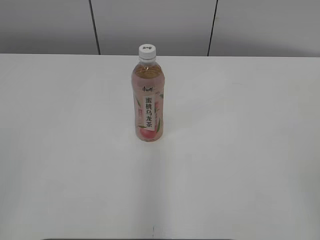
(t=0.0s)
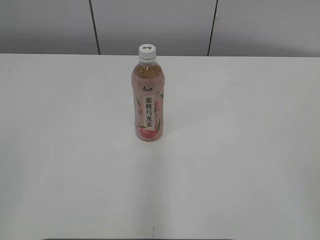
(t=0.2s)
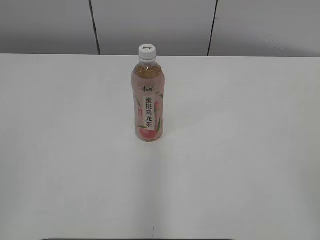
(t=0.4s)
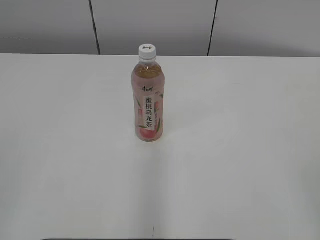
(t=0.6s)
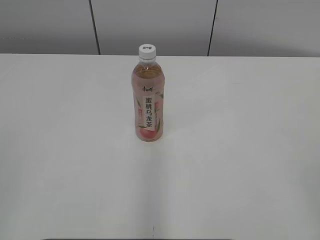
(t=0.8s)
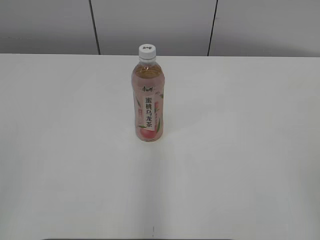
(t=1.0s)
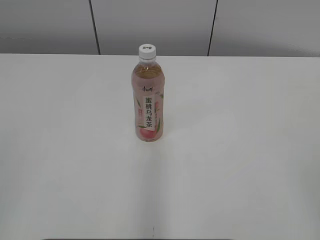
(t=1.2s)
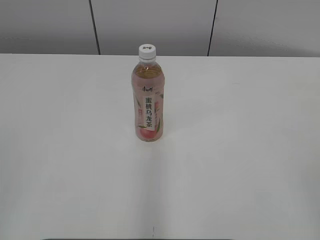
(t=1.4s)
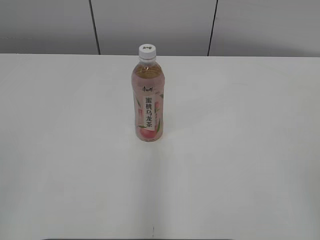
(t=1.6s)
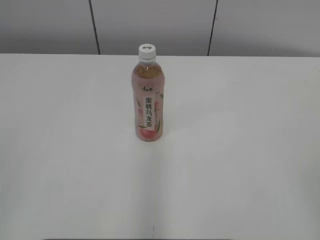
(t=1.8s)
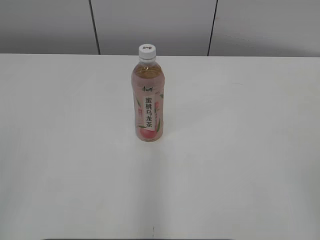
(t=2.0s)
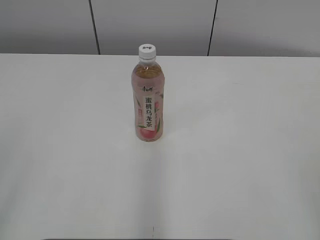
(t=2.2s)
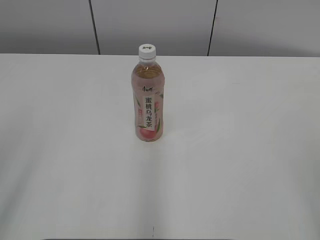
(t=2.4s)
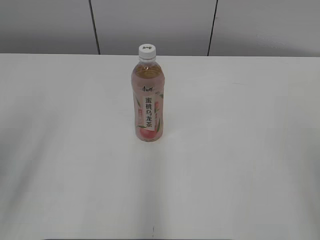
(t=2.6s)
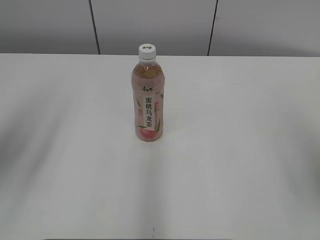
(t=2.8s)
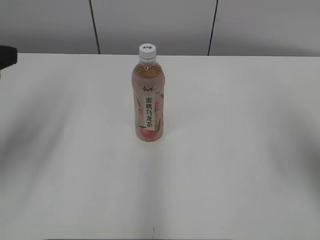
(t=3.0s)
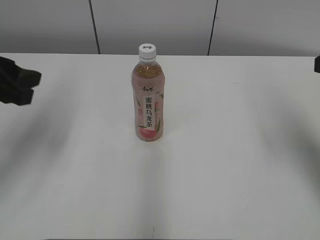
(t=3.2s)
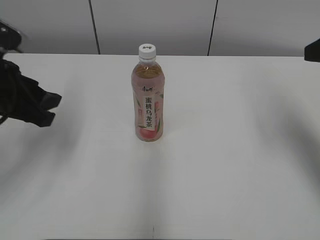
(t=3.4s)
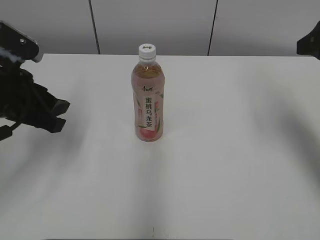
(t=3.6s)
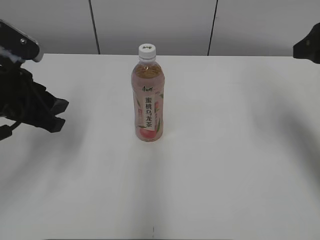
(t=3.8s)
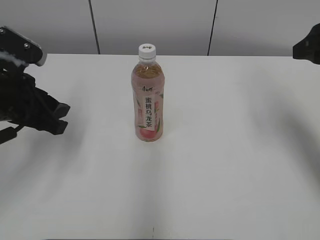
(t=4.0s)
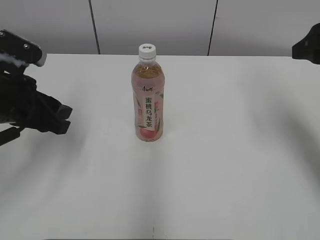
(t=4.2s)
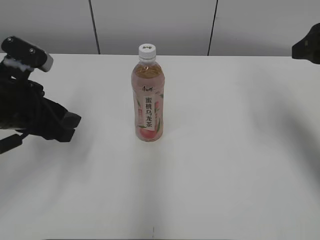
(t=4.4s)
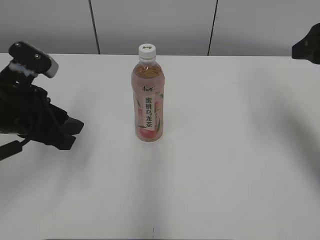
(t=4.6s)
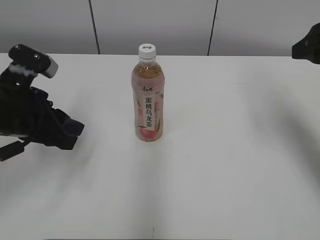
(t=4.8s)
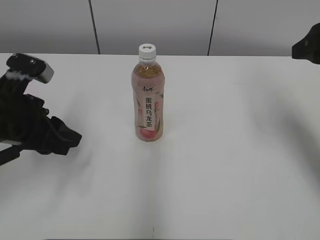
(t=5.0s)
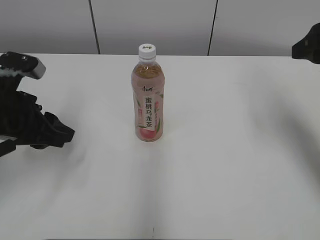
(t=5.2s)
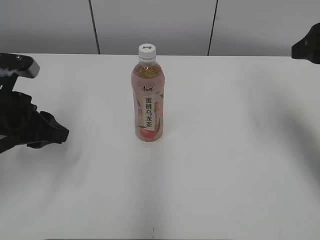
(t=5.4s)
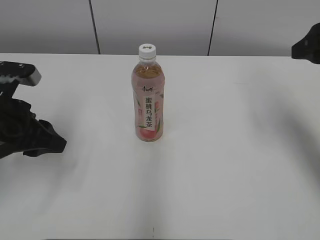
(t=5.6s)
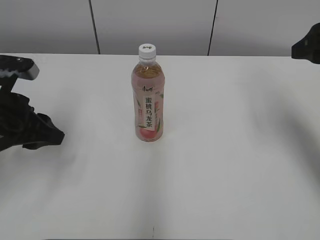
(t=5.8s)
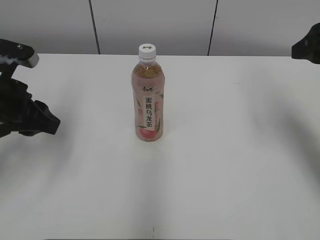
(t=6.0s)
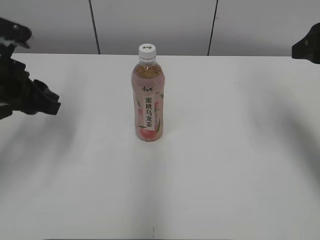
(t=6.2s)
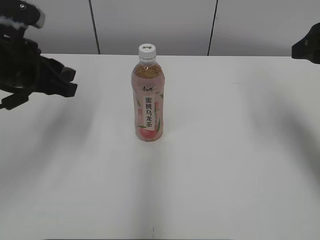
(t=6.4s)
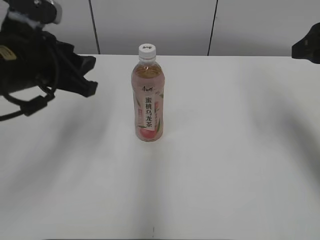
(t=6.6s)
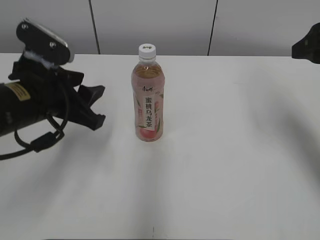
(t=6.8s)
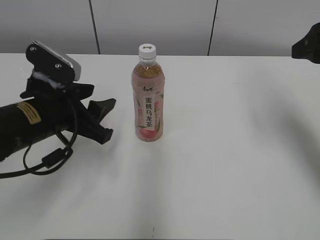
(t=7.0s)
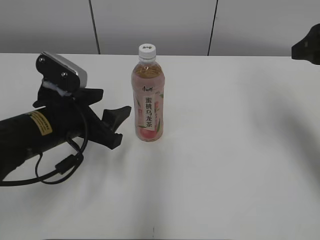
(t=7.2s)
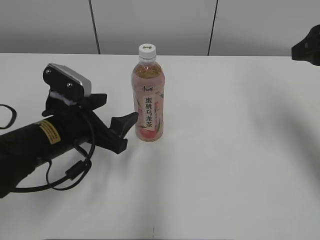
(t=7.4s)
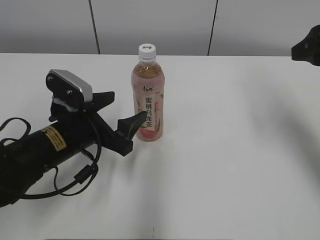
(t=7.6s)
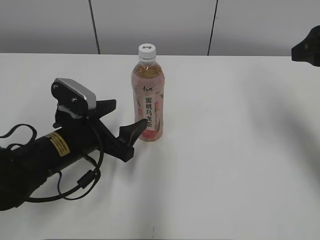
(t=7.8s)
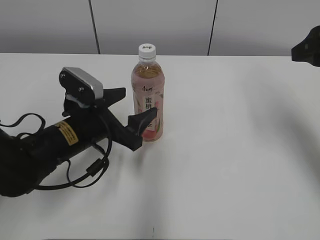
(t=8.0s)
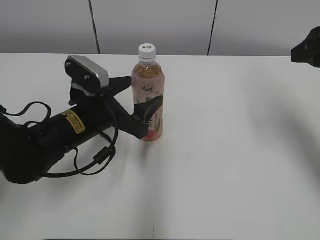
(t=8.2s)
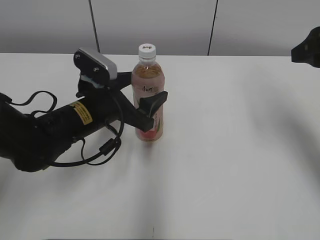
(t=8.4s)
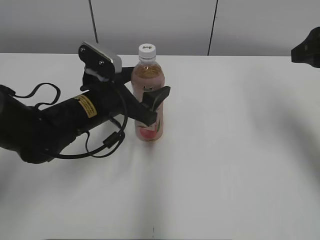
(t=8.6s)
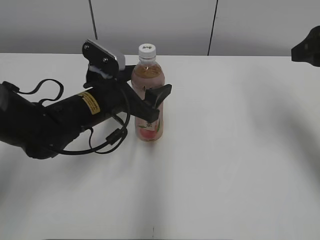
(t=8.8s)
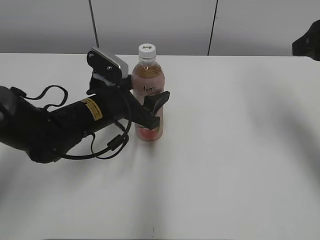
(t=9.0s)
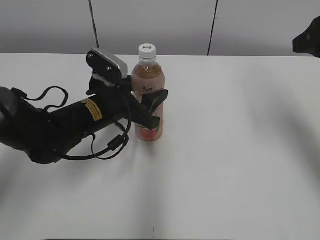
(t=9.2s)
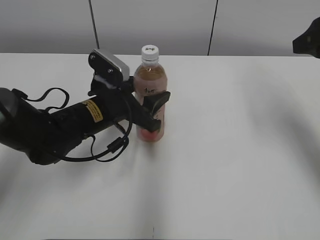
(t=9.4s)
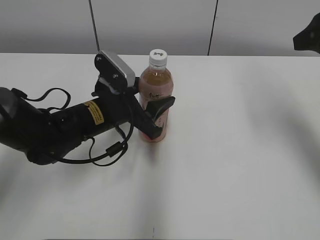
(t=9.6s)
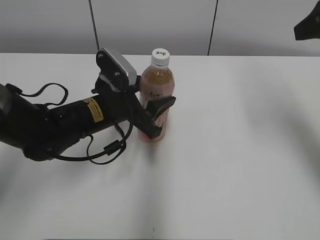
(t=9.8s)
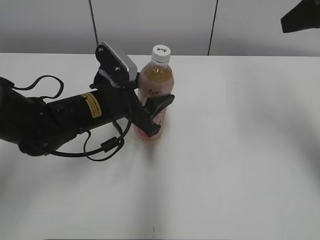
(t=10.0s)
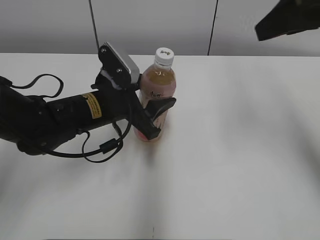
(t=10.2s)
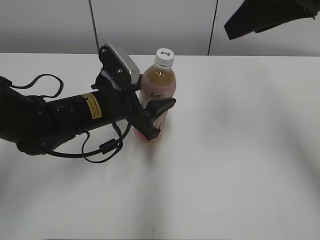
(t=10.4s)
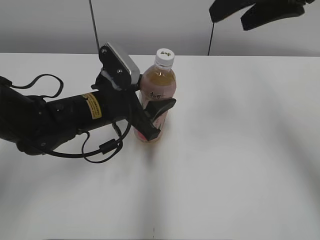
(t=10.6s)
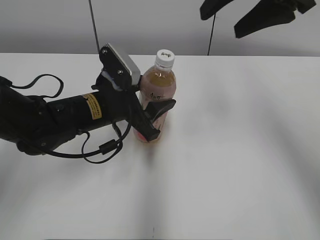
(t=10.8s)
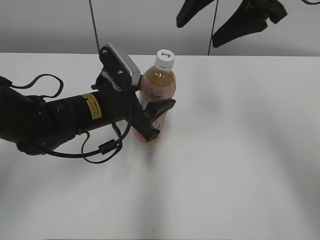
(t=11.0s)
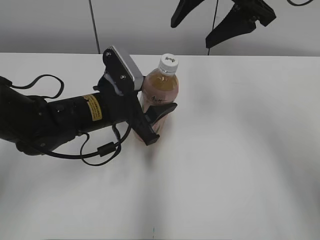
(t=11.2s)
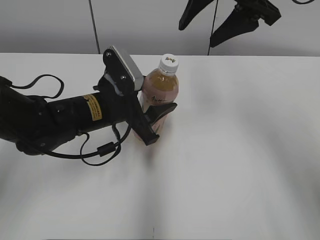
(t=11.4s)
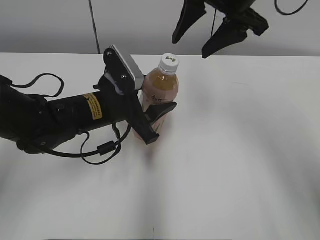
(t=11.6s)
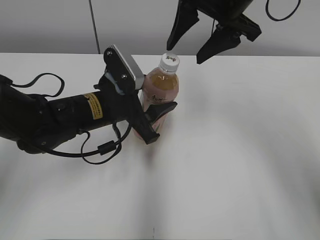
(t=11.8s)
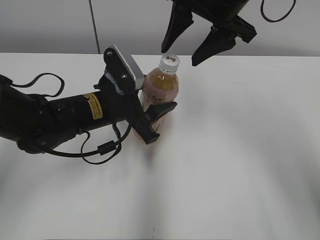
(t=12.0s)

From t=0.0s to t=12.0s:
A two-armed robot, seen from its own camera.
Step, from t=0.0s to t=9.6s: Grab the Peach Oolong Tea with the left hand.
From t=1.6s to t=3.0s: The two grippers go some 20 cm forward.
From t=3.0s to t=4.4s: The right gripper goes roughly 10 cm forward, while the left gripper travels downward and to the right by roughly 10 cm.
From t=6.0s to t=7.6s: The left gripper goes roughly 10 cm to the right and downward, and opens its fingers.
From t=7.6s to t=9.0s: The left gripper moves forward, roughly 5 cm.
From t=9.0s to t=10.4s: The right gripper shifts approximately 10 cm to the left and upward.
From t=10.4s to t=12.0s: The right gripper travels to the left and forward by about 10 cm.

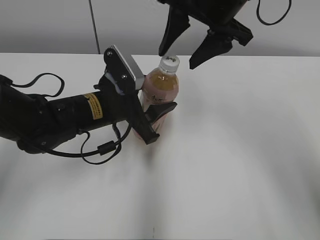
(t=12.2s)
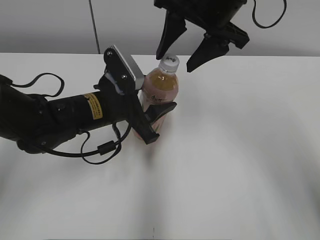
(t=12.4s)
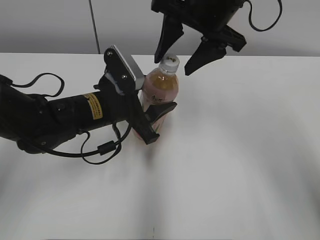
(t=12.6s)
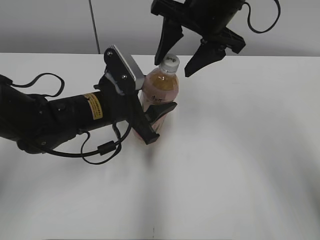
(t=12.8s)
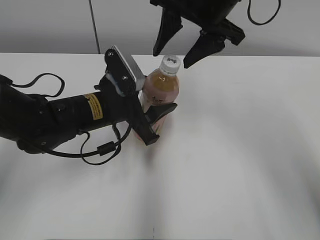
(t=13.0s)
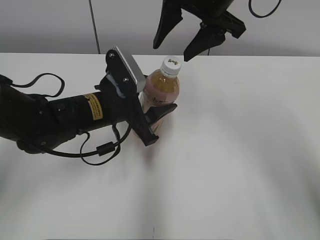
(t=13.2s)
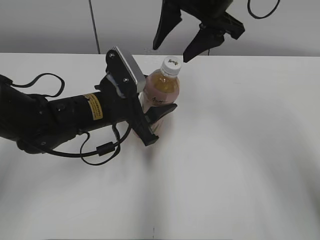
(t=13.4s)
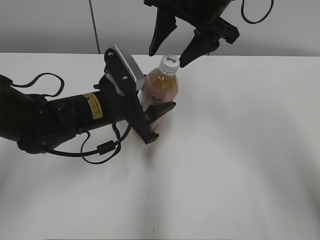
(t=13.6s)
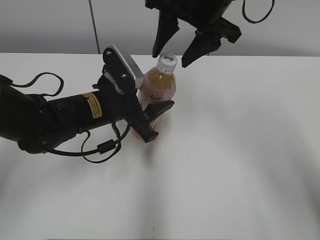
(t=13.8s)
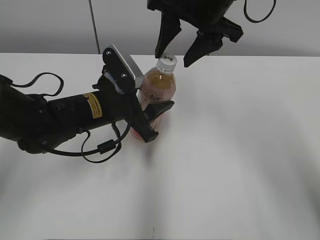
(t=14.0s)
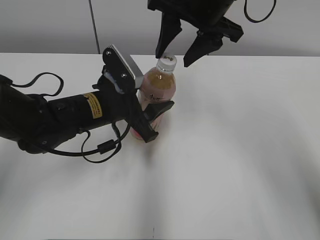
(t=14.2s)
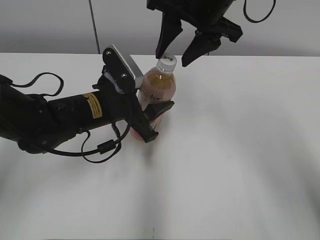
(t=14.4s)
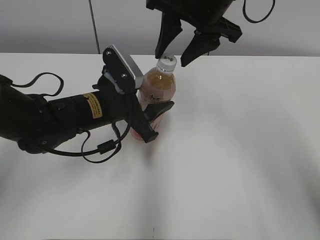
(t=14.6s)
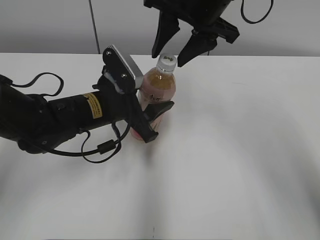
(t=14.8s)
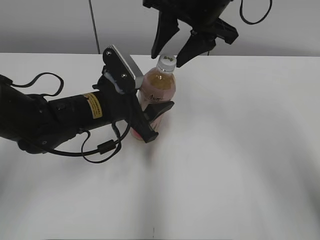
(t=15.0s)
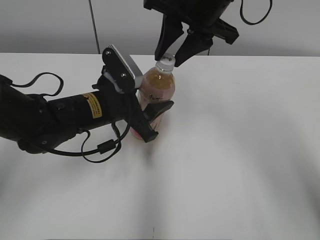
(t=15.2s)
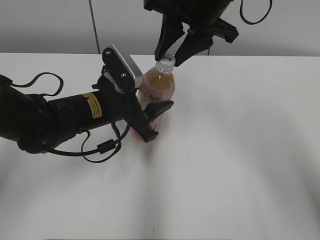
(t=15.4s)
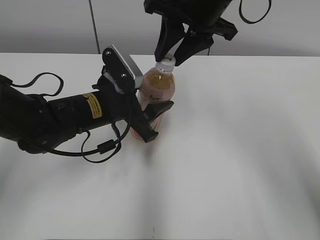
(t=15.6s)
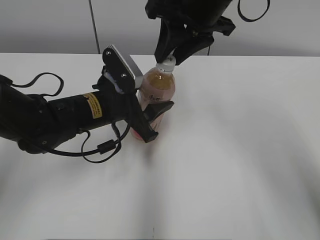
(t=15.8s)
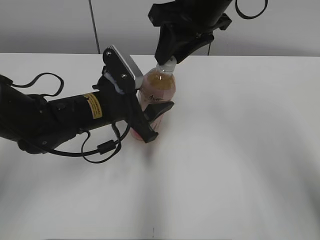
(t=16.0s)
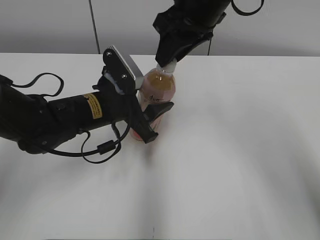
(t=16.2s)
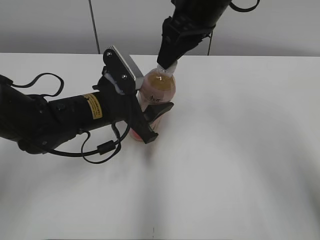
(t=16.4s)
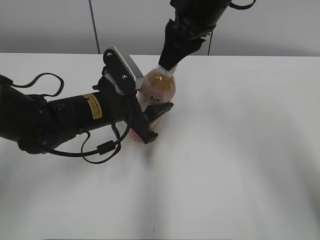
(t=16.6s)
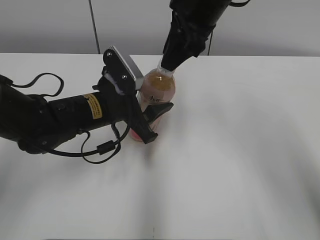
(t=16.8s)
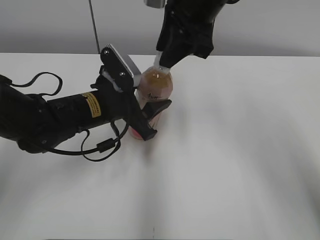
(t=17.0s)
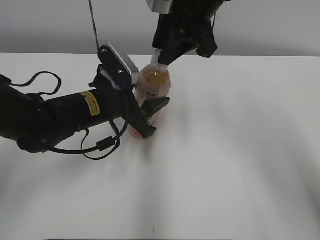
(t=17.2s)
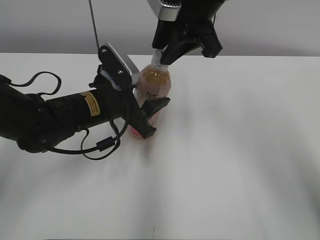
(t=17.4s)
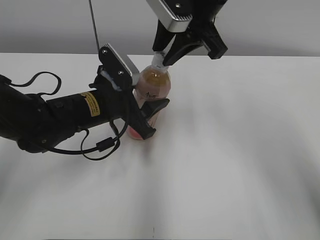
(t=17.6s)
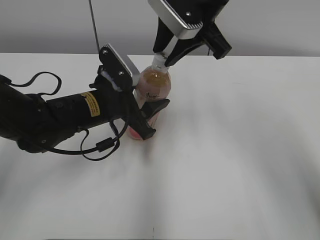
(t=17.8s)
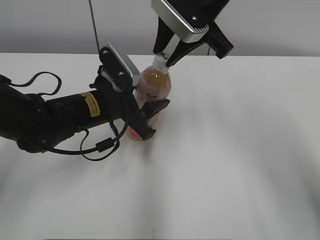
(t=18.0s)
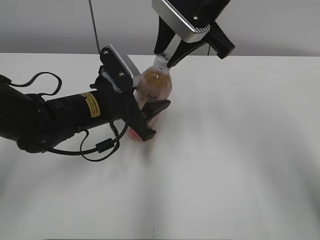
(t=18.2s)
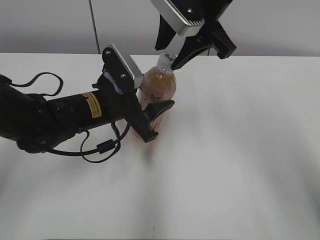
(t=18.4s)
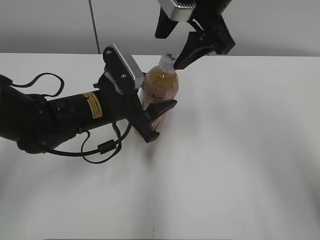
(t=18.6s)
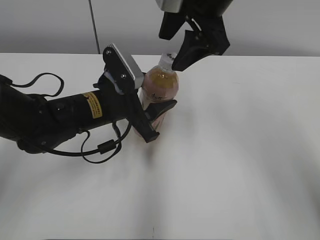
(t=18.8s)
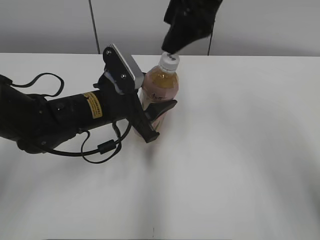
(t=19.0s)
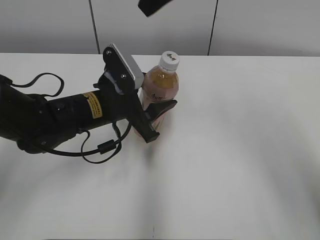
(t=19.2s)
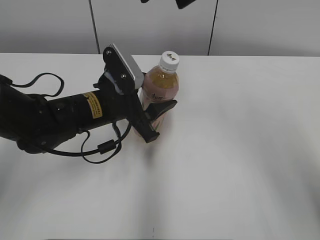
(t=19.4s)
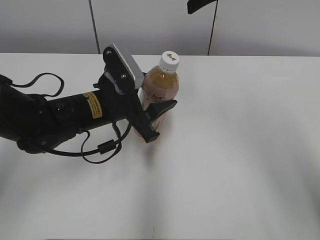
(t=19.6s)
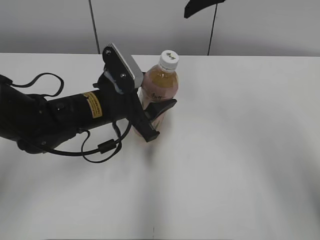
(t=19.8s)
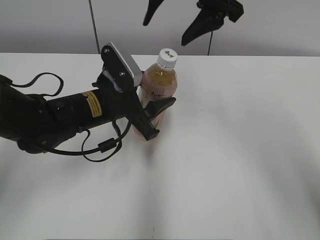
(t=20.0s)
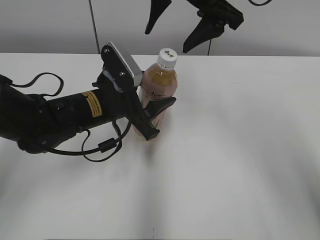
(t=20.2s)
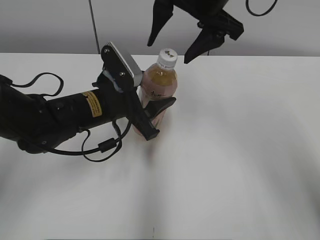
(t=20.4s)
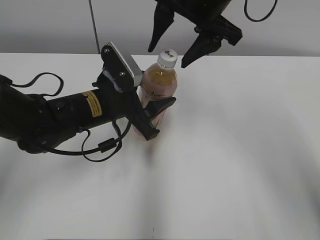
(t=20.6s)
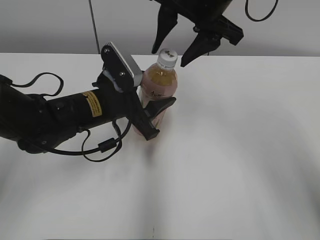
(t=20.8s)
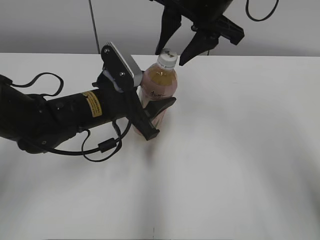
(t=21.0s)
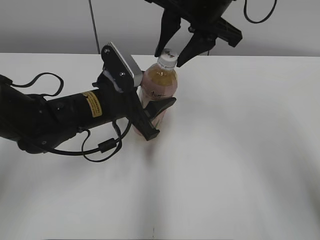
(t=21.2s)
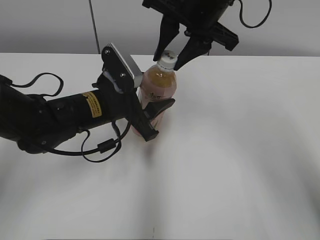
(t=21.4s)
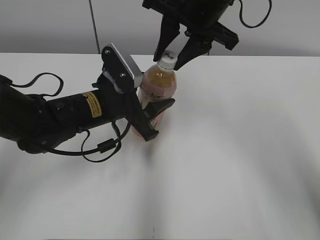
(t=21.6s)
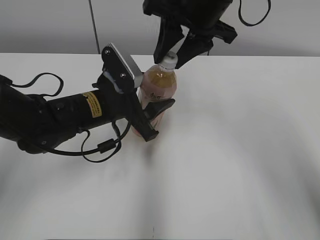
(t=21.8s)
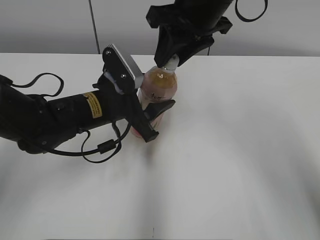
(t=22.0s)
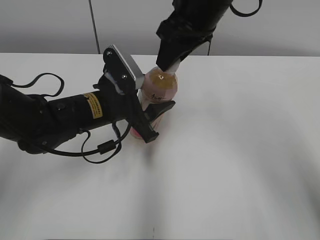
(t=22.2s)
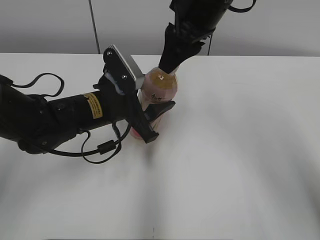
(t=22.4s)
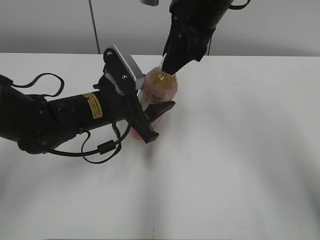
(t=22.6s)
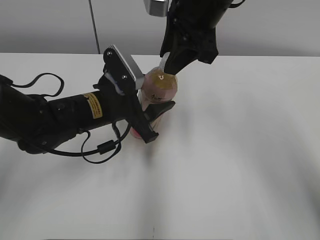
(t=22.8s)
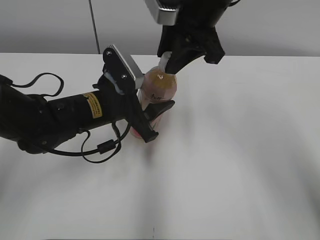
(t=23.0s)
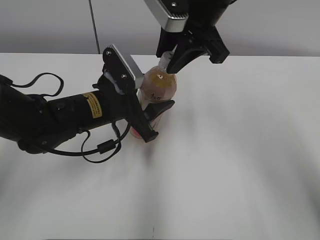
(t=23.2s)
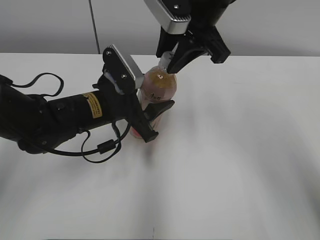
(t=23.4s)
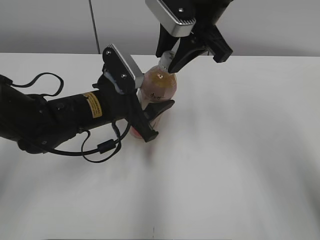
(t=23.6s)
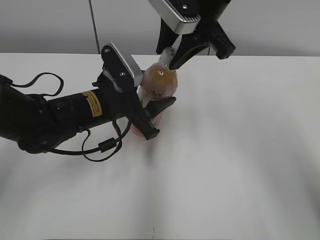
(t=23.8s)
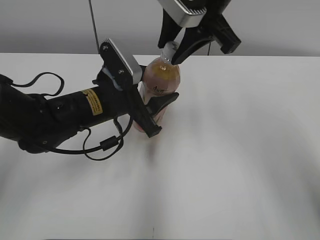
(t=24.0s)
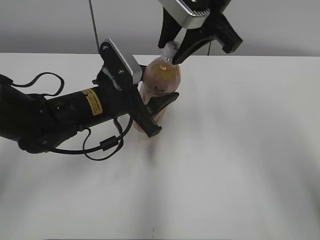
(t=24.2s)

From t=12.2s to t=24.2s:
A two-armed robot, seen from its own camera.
From t=12.2s to t=13.8s: The grippers stay close to where they were, moving slightly.
From t=13.8s to t=15.2s: The right gripper closes up.
From t=18.2s to t=19.8s: The right gripper is displaced upward by about 5 cm, and opens its fingers.
From t=19.8s to t=21.2s: The right gripper travels downward by about 5 cm, and closes up.
